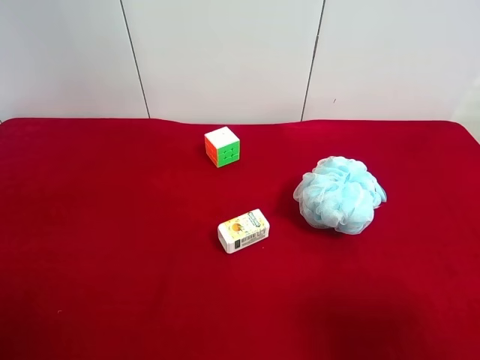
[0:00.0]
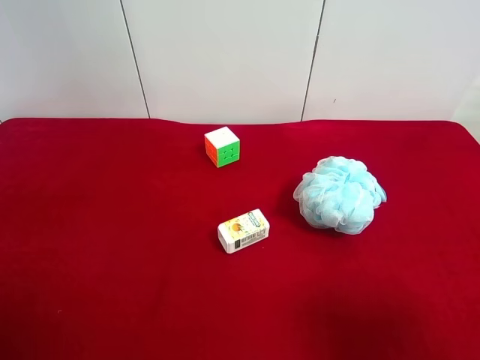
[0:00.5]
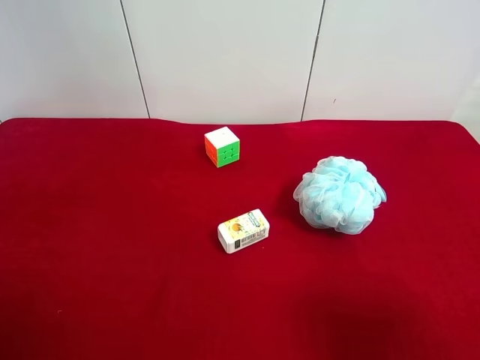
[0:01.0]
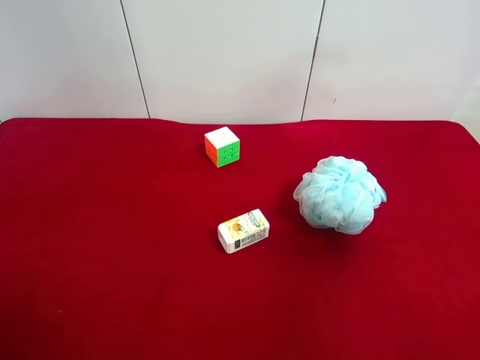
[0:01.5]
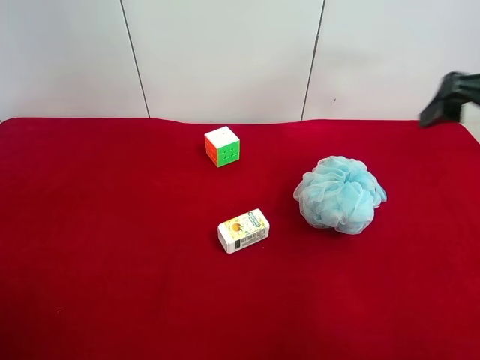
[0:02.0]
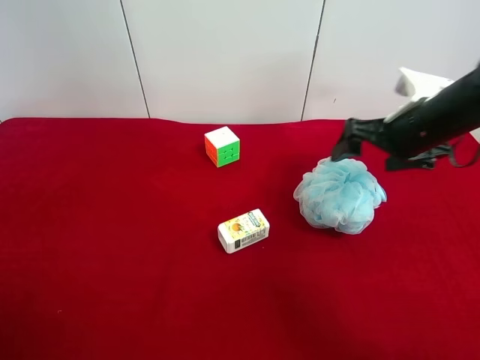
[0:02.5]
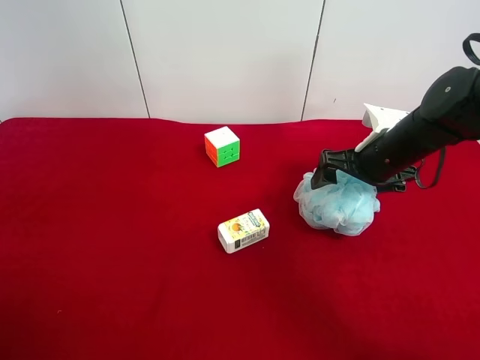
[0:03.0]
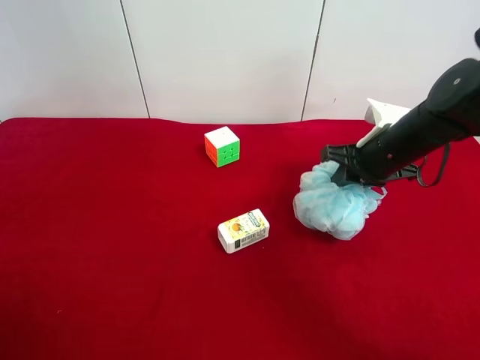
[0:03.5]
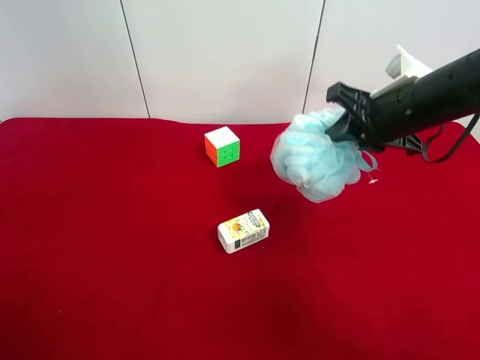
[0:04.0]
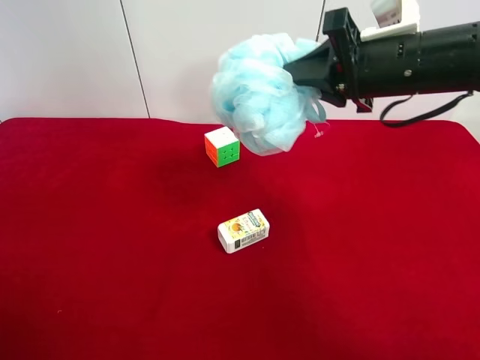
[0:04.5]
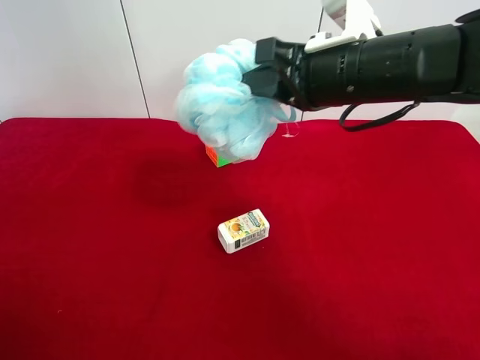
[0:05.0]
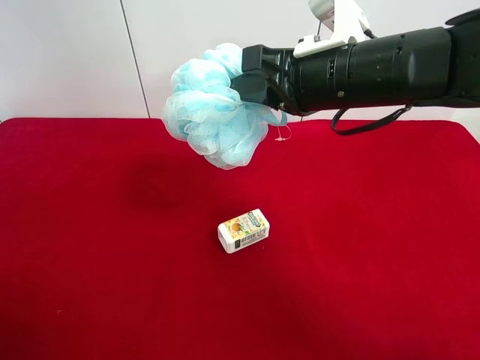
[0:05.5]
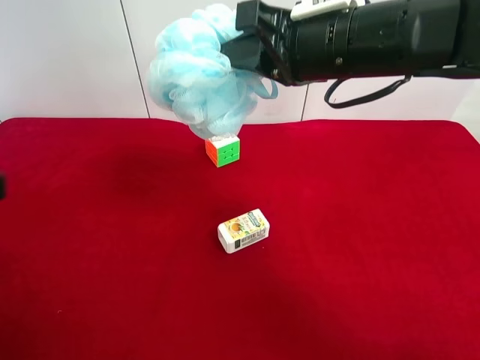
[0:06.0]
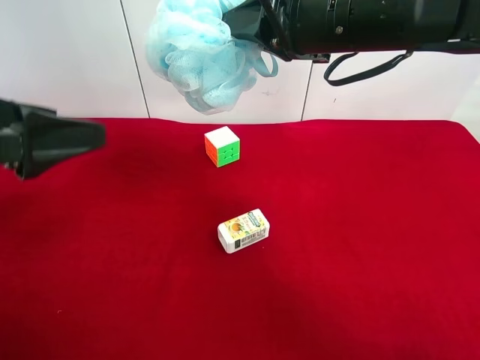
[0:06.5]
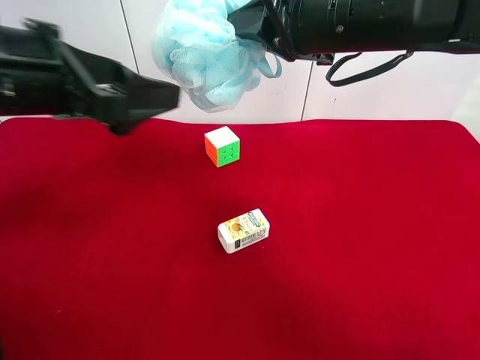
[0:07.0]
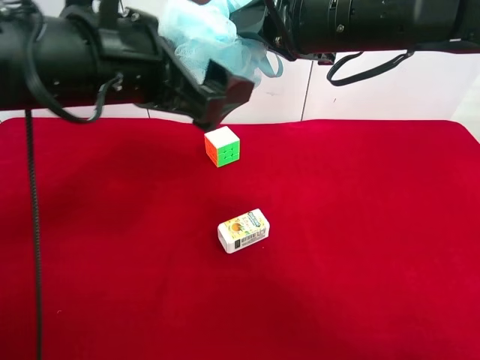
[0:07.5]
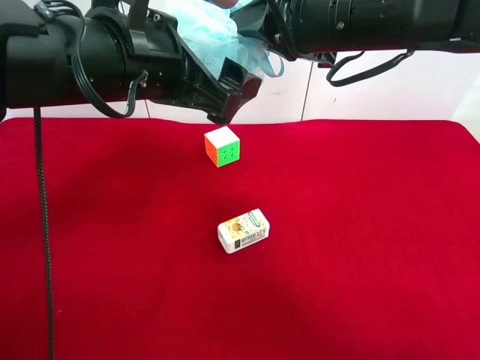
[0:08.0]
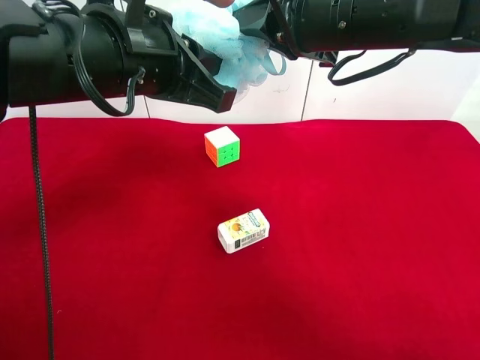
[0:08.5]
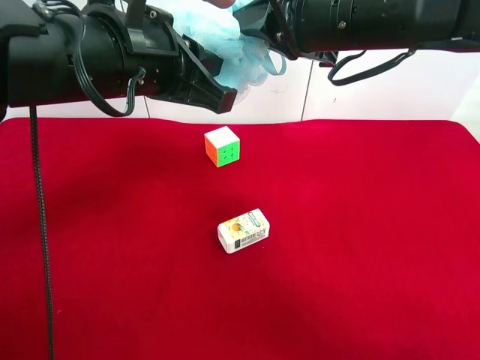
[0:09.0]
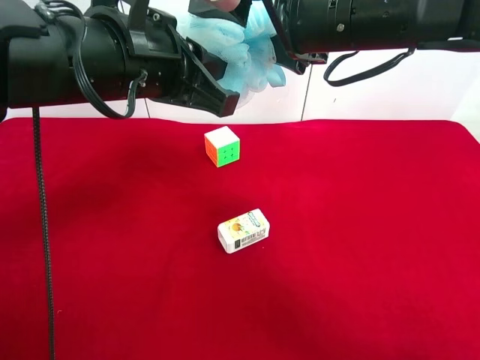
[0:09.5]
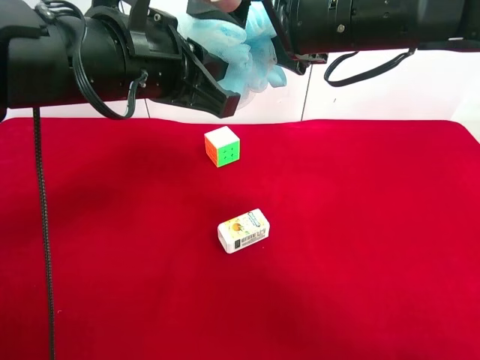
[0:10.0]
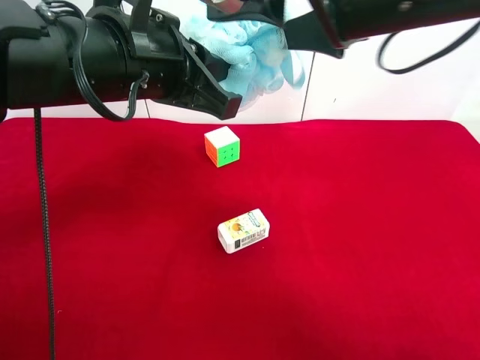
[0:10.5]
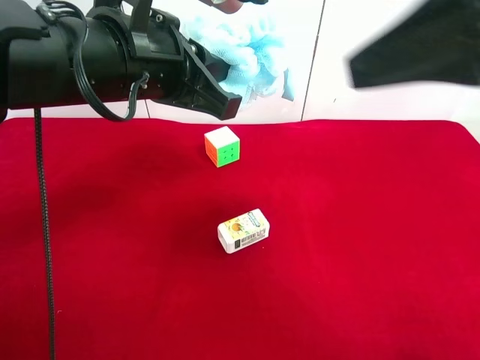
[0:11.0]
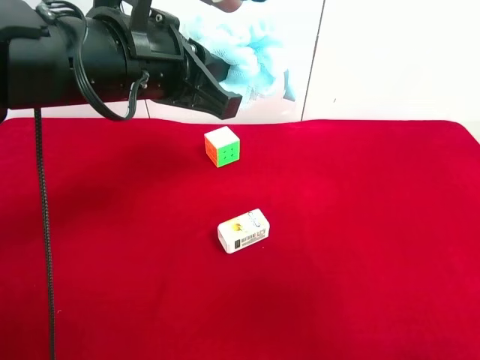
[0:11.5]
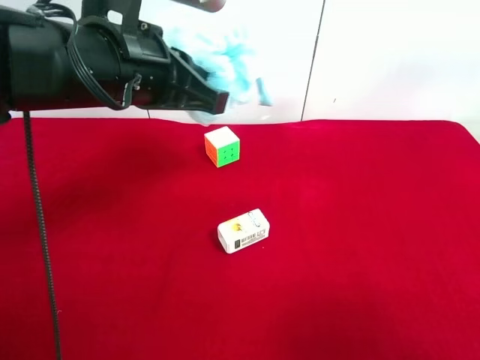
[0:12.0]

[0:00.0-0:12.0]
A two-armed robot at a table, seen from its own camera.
Task of the whole recording: use the right gripper to pick up the item and transfer it from the right gripper to the left gripper.
Step, 0:00.0 to 0:03.0: Use the right gripper to grab the shower sphere on the right side of the table.
Step, 0:03.5 to 0:09.5: Pass the shower sphere to the left gripper.
0:02.0 to 0:04.0: The right gripper heads downward, forward and to the left, covering some 15 cm, and closes its fingers.
0:04.0 to 0:06.0: The left gripper travels forward by some 5 cm. The right gripper goes roughly 15 cm to the left and upward.
0:06.0 to 0:08.0: The left gripper is displaced to the right and forward by about 25 cm.
0:08.0 to 0:10.0: The right gripper opens up, while the left gripper closes its fingers.
0:10.0 to 0:12.0: The right gripper shifts some 35 cm backward and to the right.

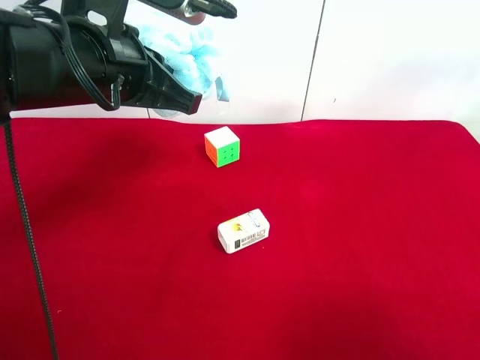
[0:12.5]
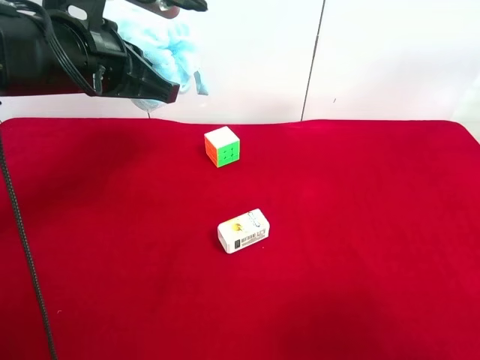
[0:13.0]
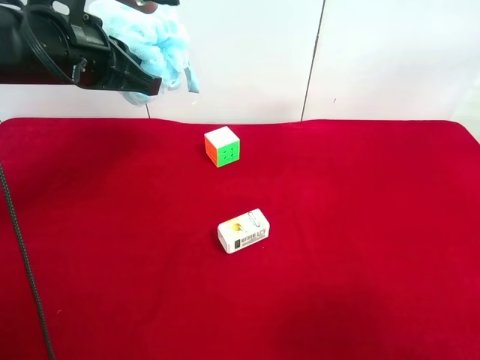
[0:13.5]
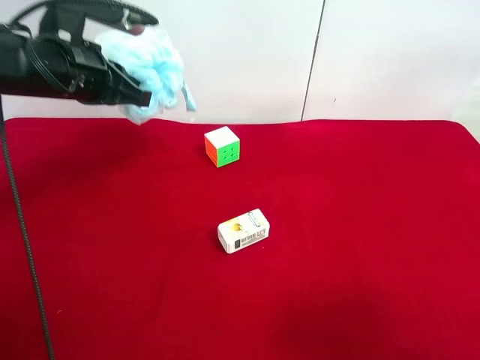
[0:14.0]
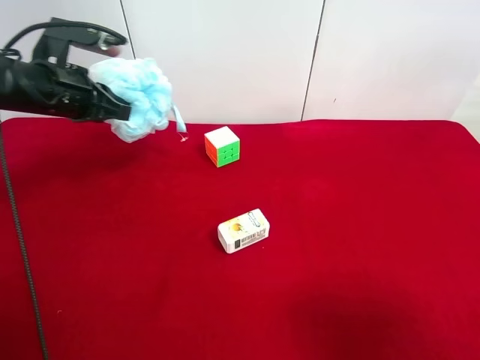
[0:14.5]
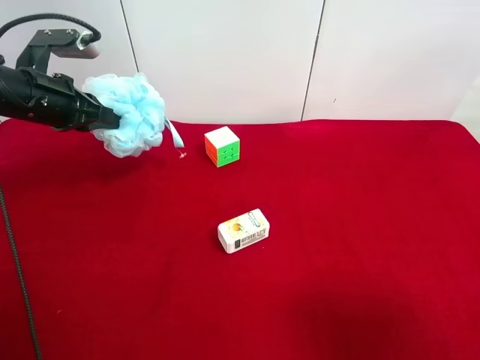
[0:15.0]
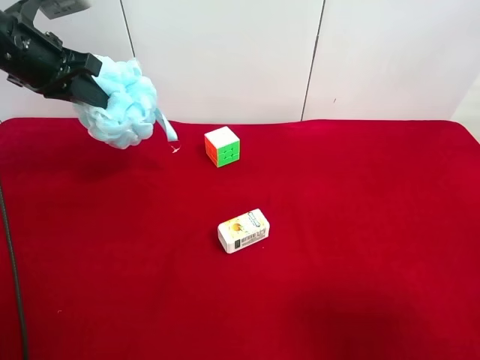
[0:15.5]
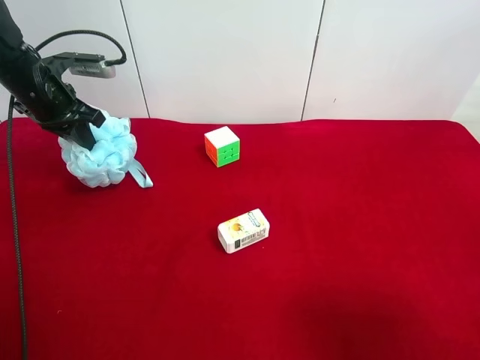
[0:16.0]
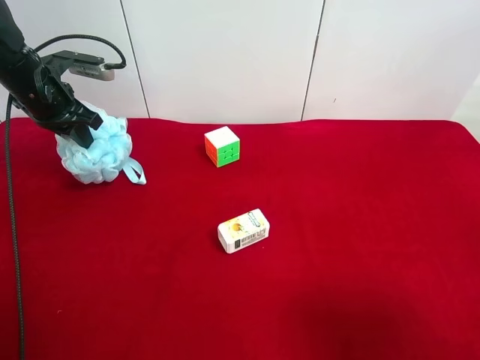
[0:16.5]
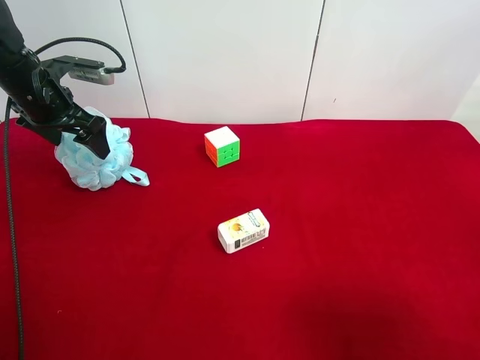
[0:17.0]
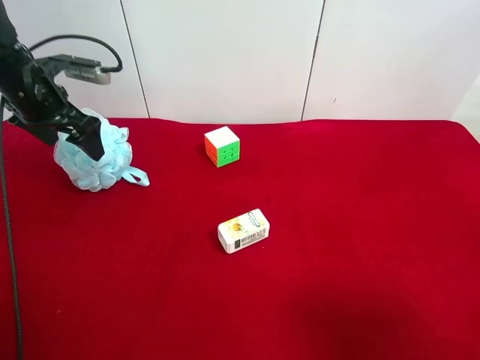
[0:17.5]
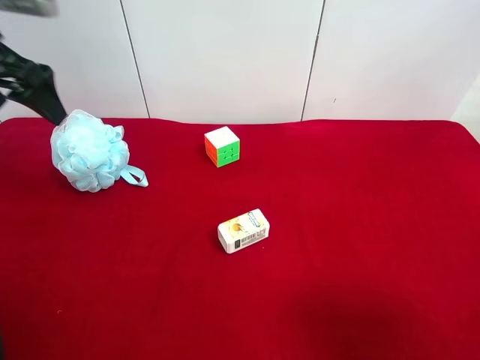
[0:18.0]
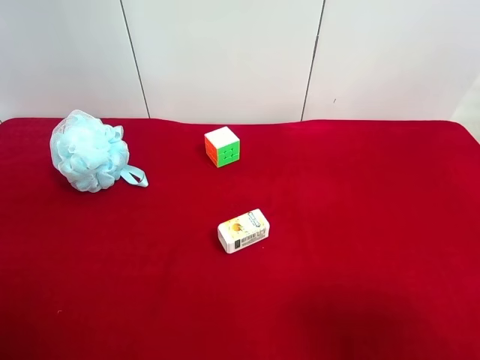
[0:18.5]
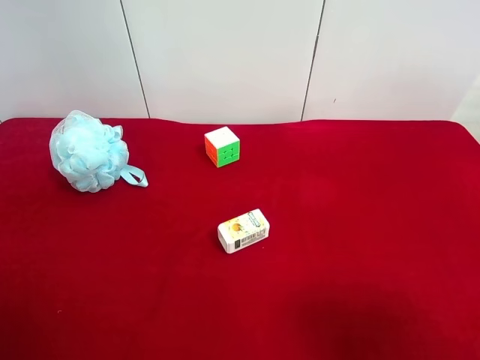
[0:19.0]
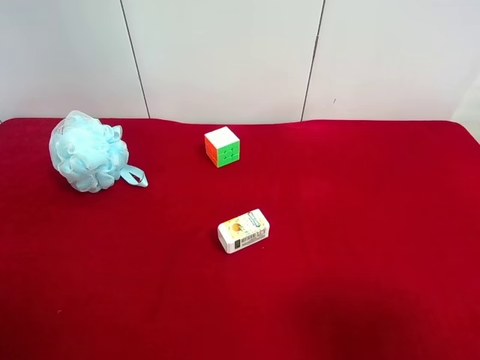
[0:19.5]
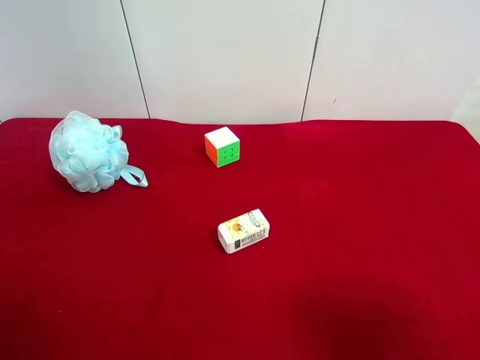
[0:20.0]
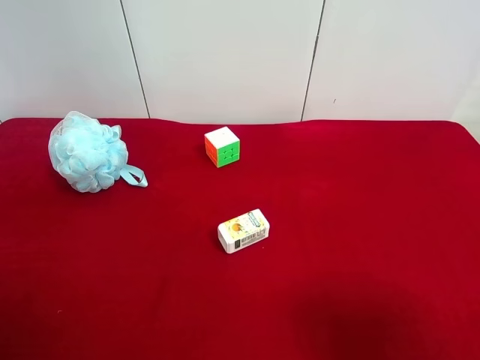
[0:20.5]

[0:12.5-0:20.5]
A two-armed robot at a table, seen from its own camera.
Task of the whole recording: use the right gripper to pick up the item and transfer it from the right gripper to the left gripper.
Step, 0:12.5 to 0:16.5: The left gripper places shower sphere on the left side of the table.
0:12.5 to 0:14.5: The left gripper shifts about 15 cm to the left, forward and downward.
0:14.5 to 0:16.5: The left gripper shifts approximately 10 cm forward and to the left.
0:16.5 to 0:18.5: The left gripper is displaced backward and upward by some 30 cm, and opens its fingers.

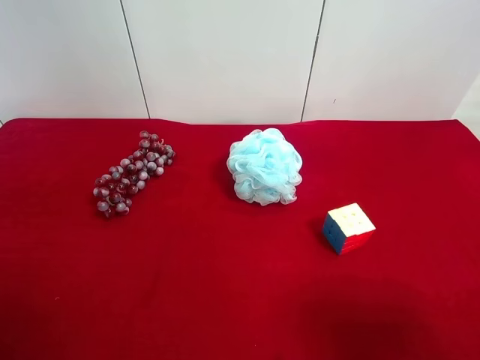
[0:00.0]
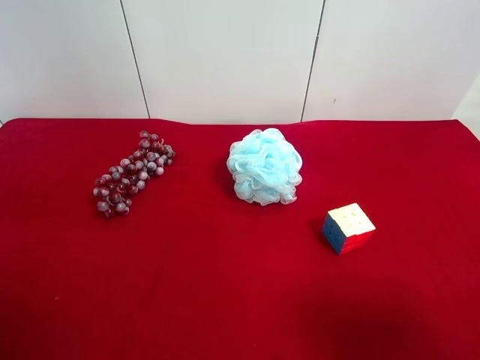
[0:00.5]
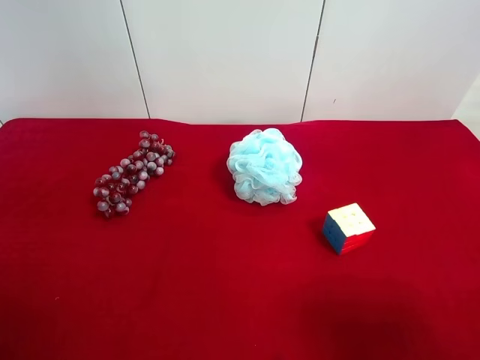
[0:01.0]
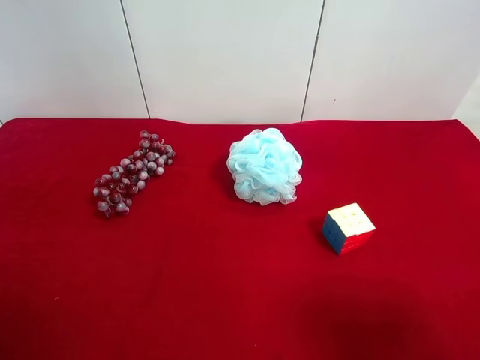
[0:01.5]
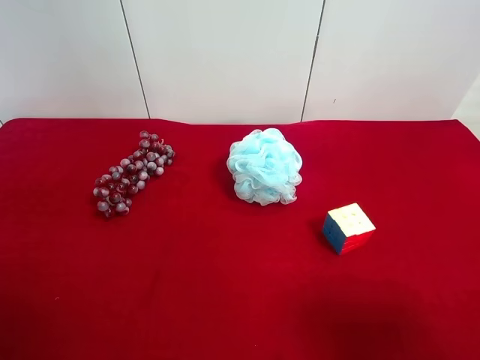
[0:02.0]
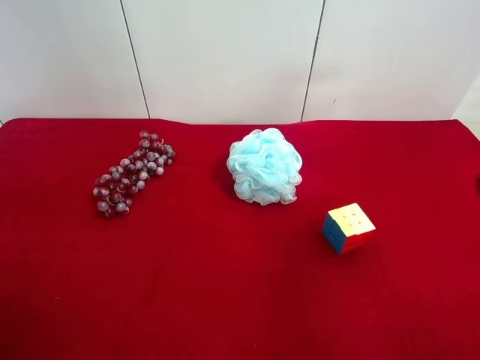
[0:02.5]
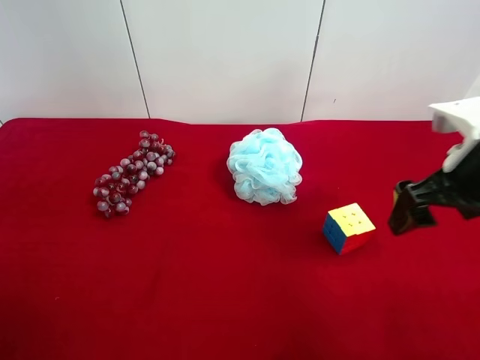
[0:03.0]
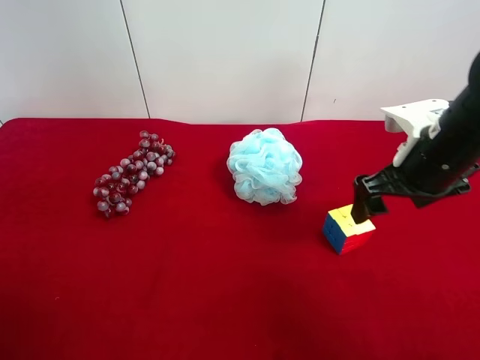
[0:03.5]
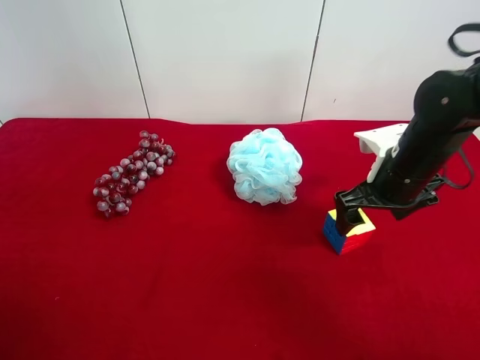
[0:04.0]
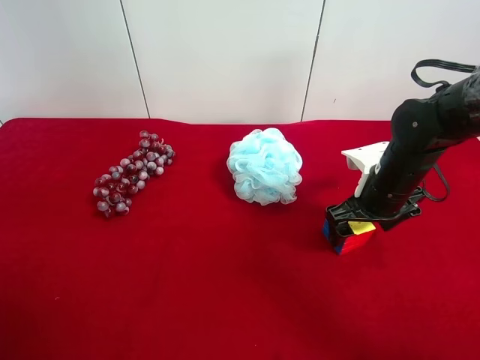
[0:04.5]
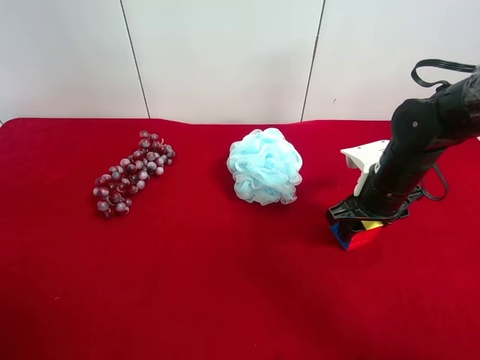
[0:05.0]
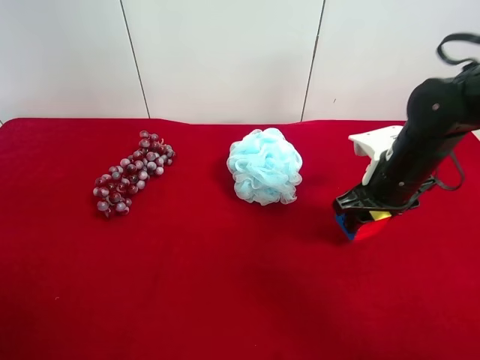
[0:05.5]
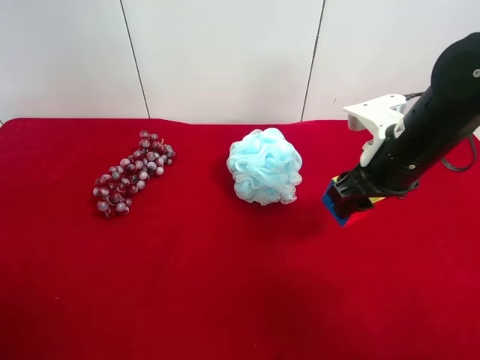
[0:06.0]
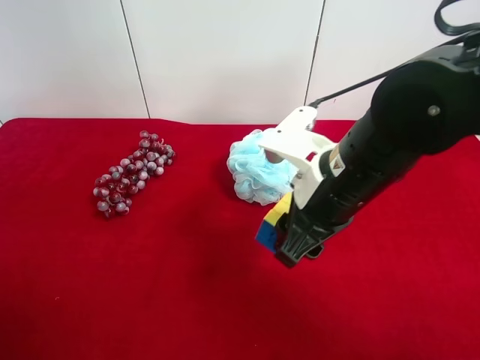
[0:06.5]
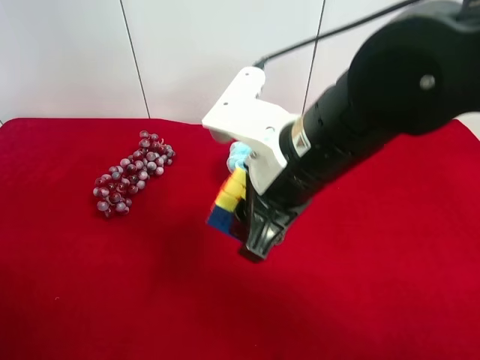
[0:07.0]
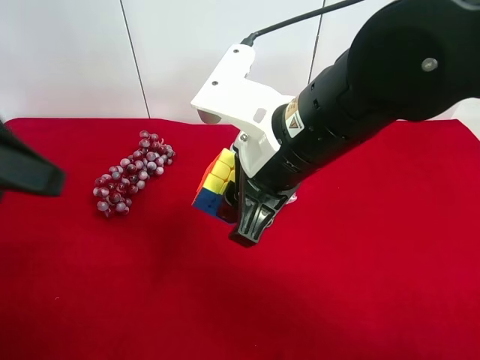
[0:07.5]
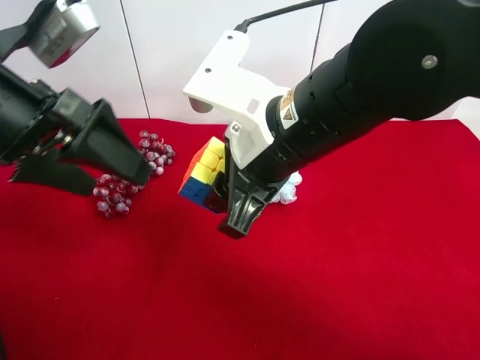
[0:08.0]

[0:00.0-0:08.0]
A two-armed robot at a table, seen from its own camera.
Task of the whole recording: use the right gripper to pick up the item and transfer it from the right gripper to the left gripper.
Step, 0:00.0 to 0:04.5: Use the right gripper to grab the Rubik's Cube on the right side of the table.
0:00.0 to 0:02.0: Both grippers stay about where they are.
0:02.0 to 0:04.0: The right gripper heads forward and downward, covering roughly 30 cm.
0:04.0 to 0:06.0: The right gripper moves upward, roughly 5 cm, and closes.
0:06.0 to 0:08.0: The left gripper heads forward and to the right, covering approximately 25 cm. The right gripper is displaced to the left by about 15 cm.
